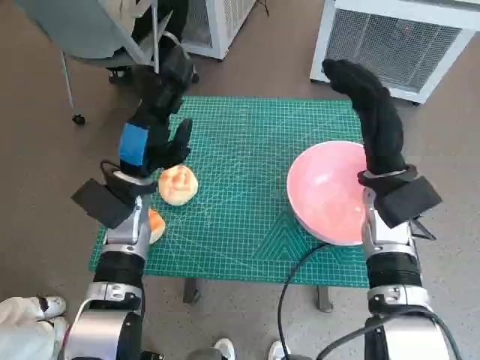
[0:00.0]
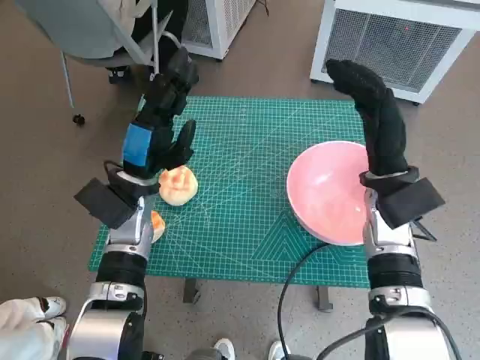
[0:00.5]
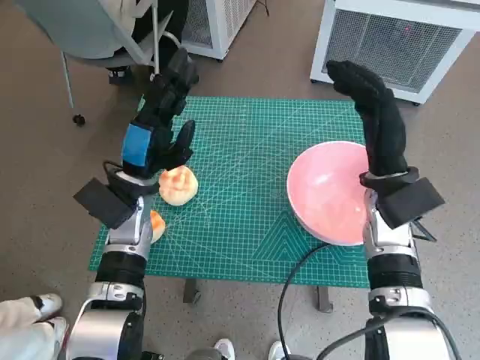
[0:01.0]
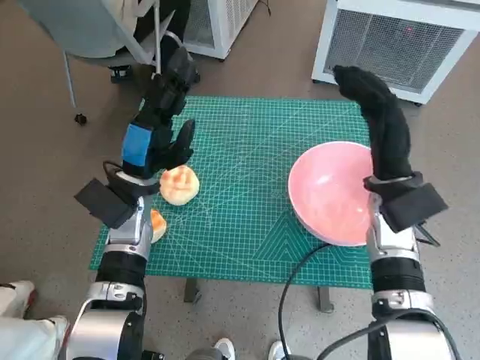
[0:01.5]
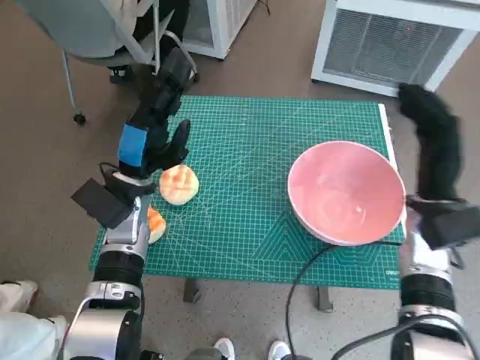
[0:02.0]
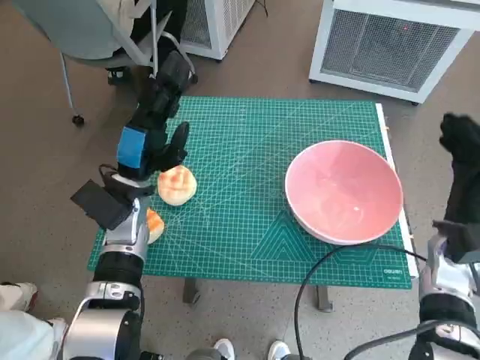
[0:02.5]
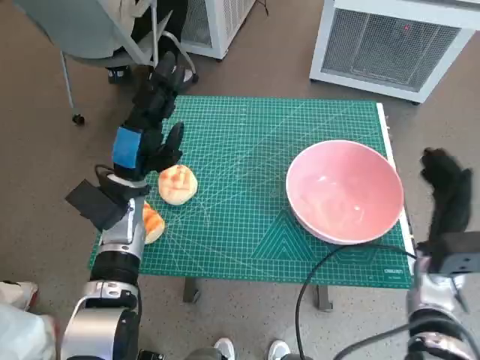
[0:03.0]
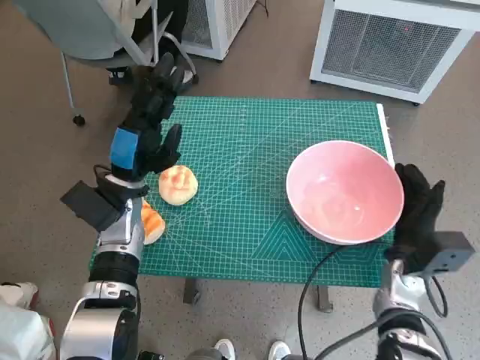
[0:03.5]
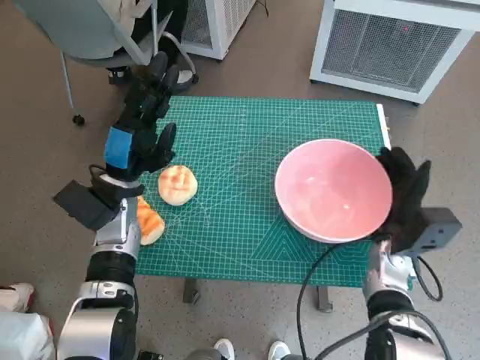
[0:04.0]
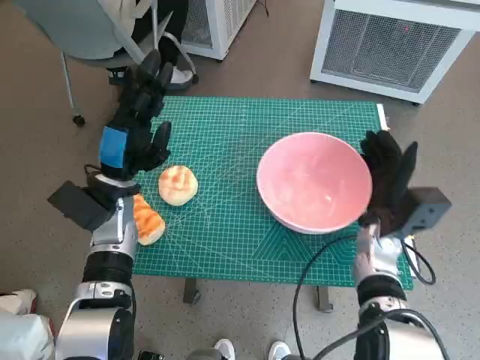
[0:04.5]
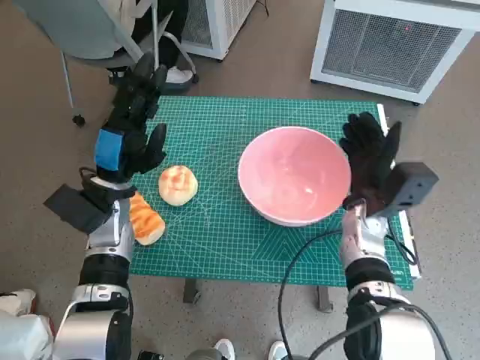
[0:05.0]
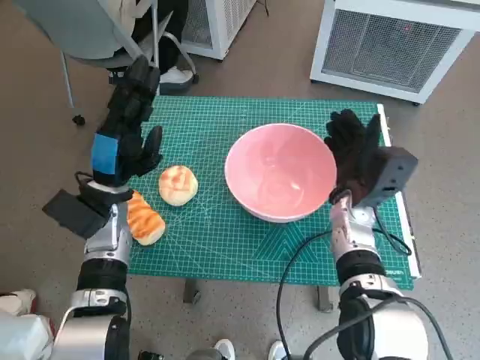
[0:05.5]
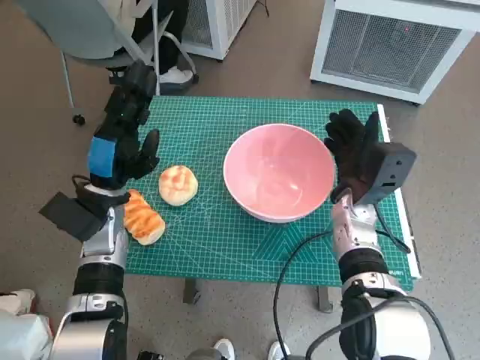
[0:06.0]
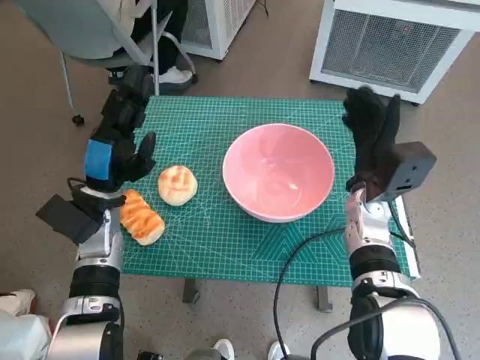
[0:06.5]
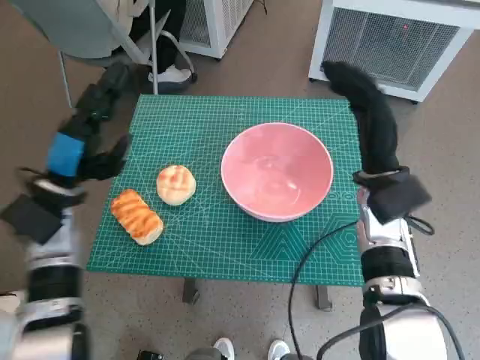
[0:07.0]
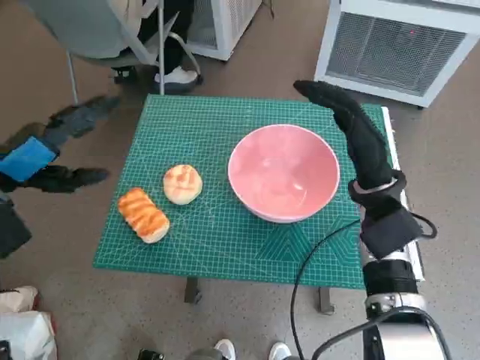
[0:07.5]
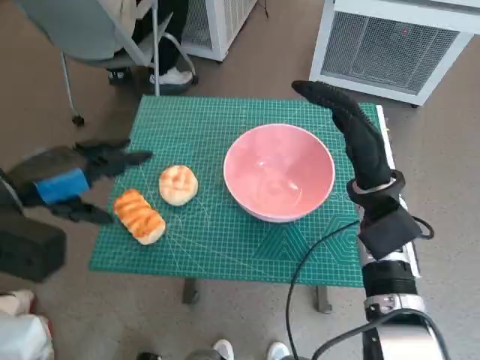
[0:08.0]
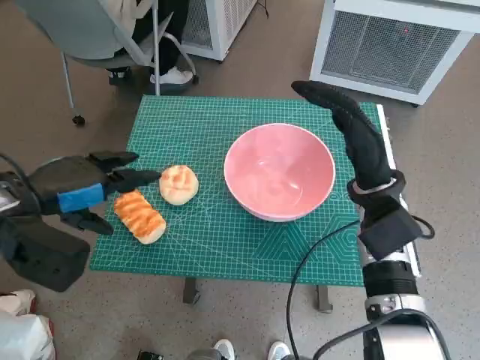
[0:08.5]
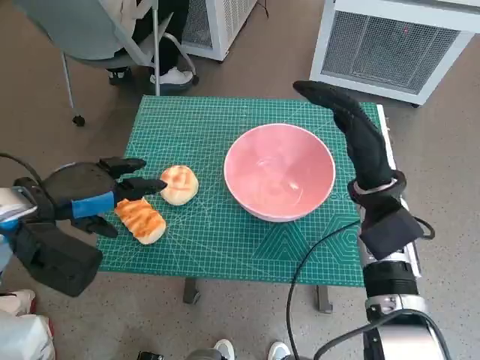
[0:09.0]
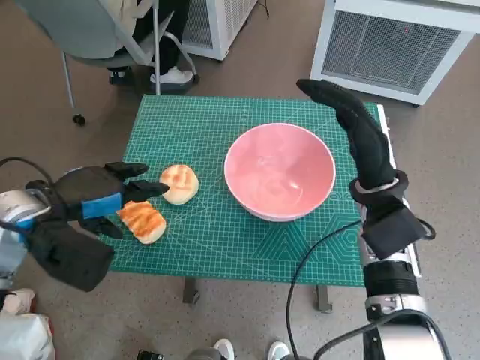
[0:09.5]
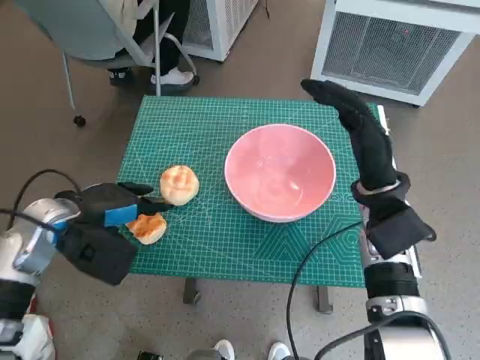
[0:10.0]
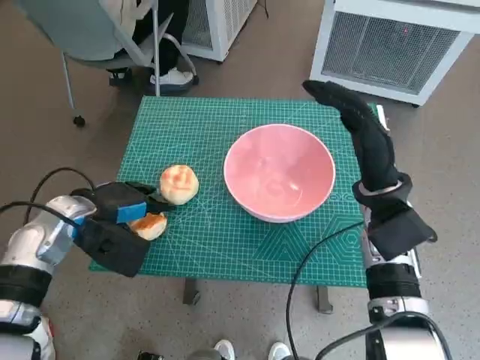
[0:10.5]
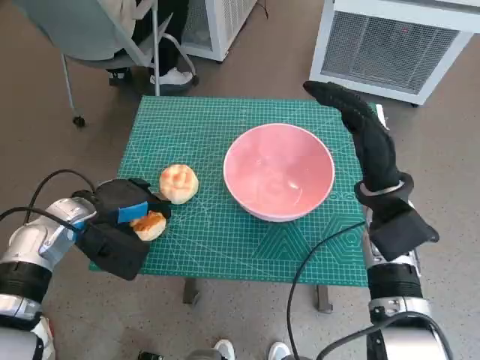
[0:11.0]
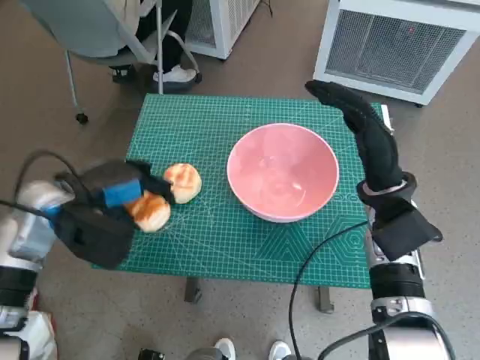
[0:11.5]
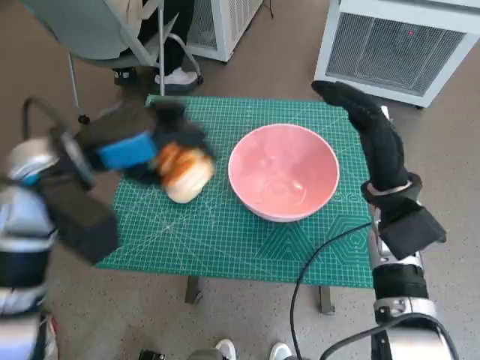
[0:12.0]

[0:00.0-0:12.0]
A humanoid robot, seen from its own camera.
Task of the whole recording: Push the bowl to the center of the table and put the bread into the bowl.
Step, 0:00.0 to 0:06.0: Move the pink bowl to the center of table with right hand.
Step, 0:06.5 to 0:11.0: Grasp the long bread with left hand.
0:02.0 to 0:04.0: The right hand goes about 10 cm downward.
0:04.0 to 0:06.0: The right hand shifts roughly 10 cm to the left, upward and forward.
0:06.0 to 0:08.0: The left hand moves upward and to the left, roughly 10 cm. Meanwhile the right hand is displaced upward by approximately 5 cm.
0:08.0 to 0:10.0: The left hand goes about 5 cm downward.
0:10.0 to 0:12.0: The left hand travels upward by approximately 10 cm.

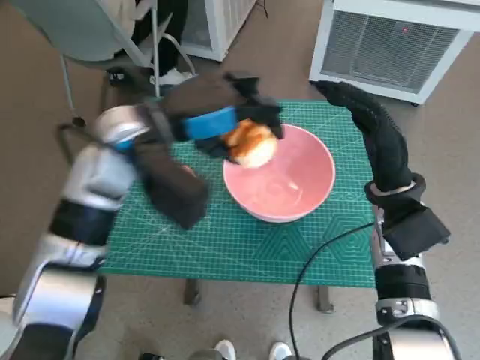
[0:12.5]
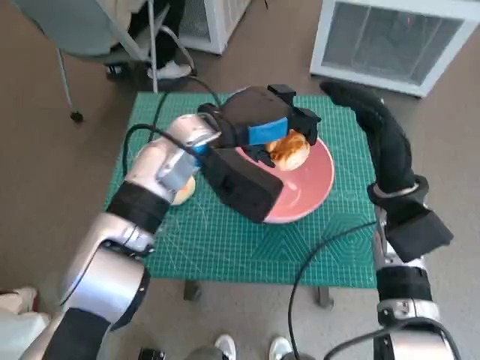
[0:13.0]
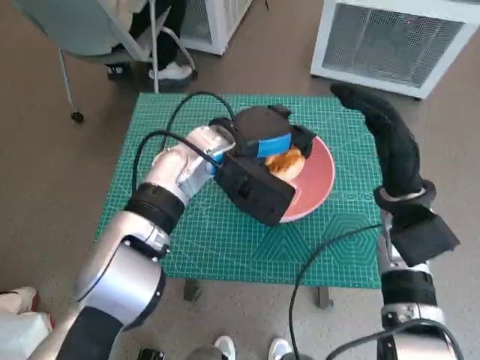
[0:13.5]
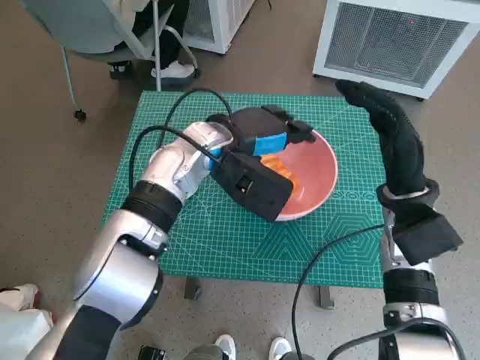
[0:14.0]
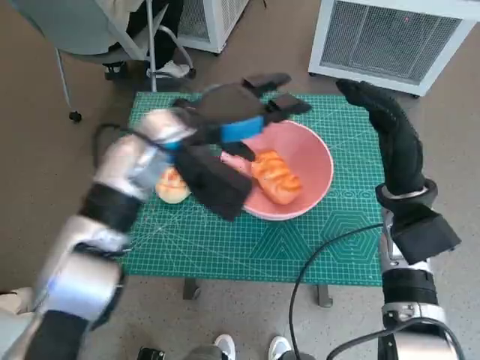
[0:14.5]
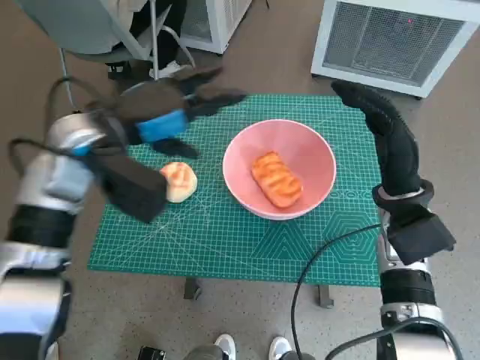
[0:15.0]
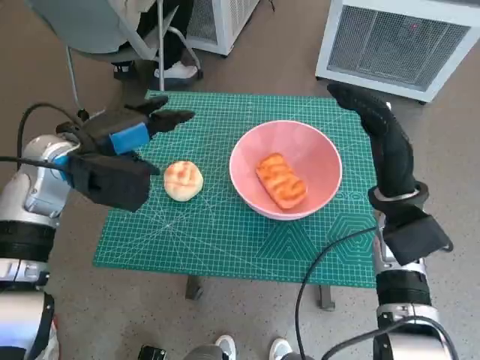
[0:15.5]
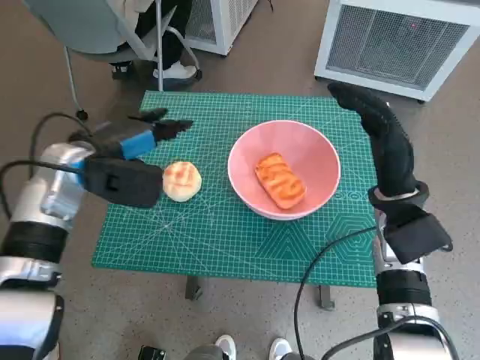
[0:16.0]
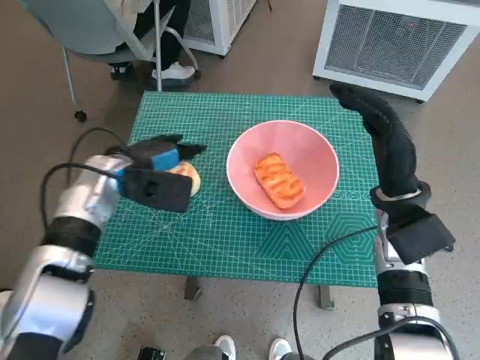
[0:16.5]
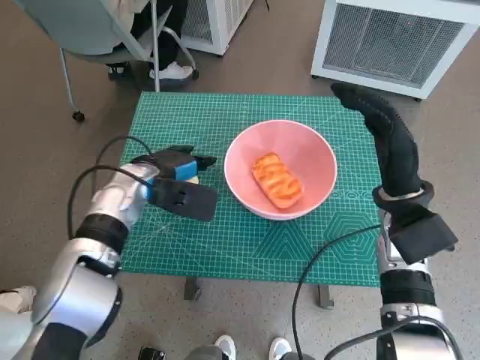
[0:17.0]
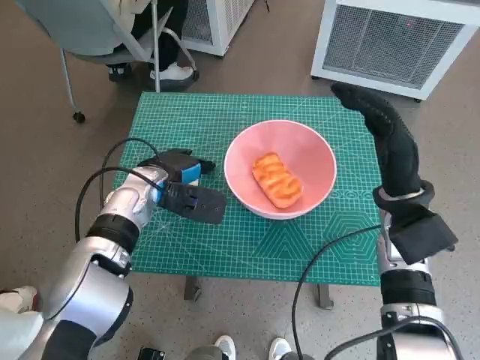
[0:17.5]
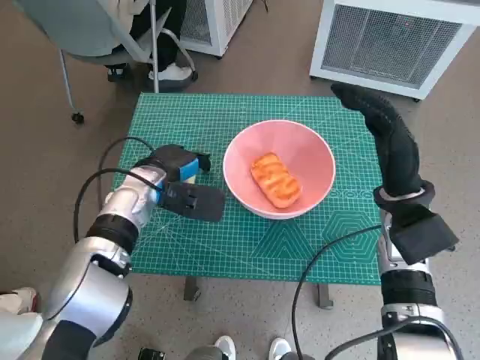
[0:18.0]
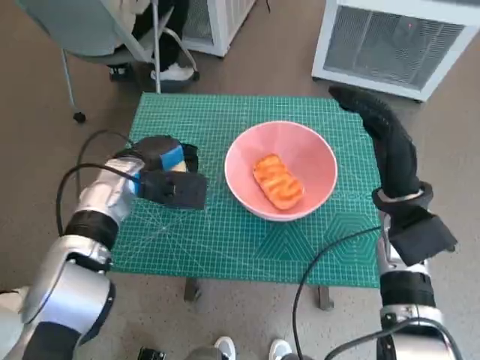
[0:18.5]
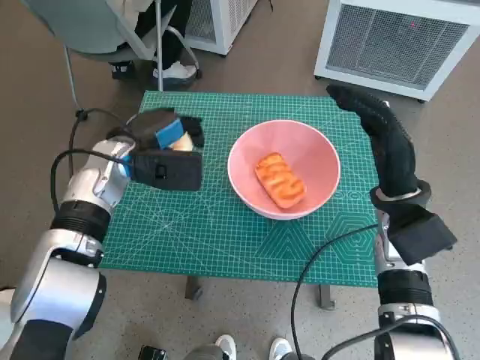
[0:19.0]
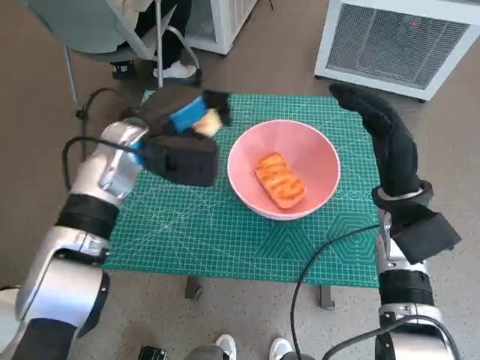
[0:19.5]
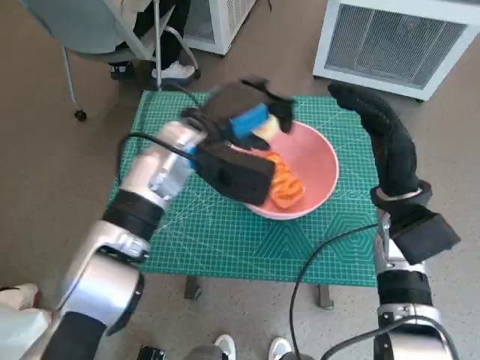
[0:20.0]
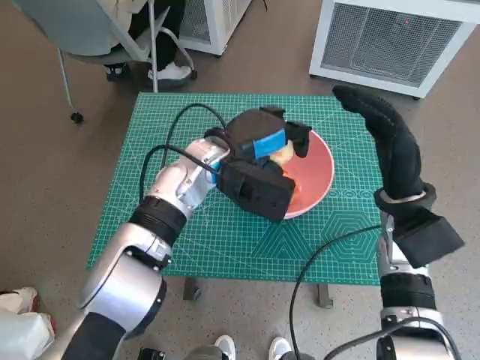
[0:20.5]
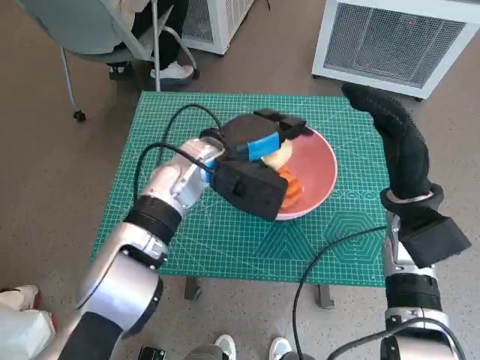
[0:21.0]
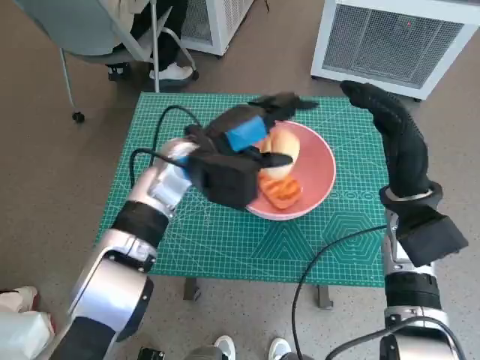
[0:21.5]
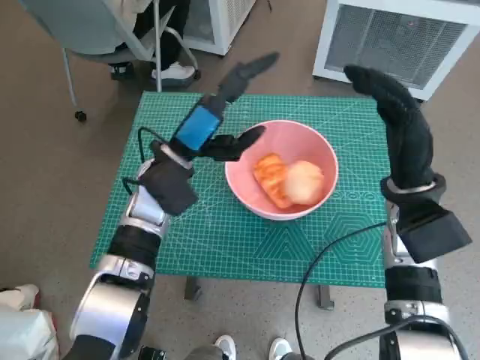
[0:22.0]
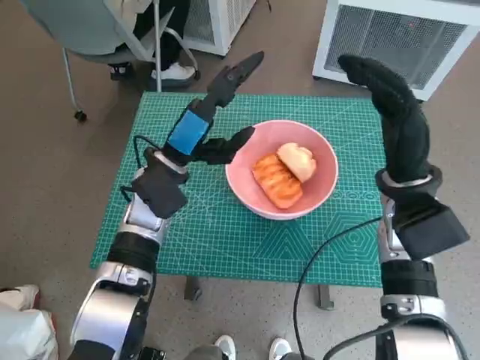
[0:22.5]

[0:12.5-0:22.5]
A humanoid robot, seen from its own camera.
Task of the whole recording: Push the bowl to the center of the table and put the bread into the bowl.
Step, 0:12.5 to 0:14.0: Place the long bread in pink bowl with left hand.
Step, 0:14.5 to 0:18.0: Grasp the round bread with left hand.
Step, 0:18.5 to 0:21.5: Place the round bread in pink bowl with left hand.
0:14.5 to 0:16.5: The left hand moves to the left and downward, roughly 15 cm.
0:16.5 to 0:18.5: The hands make only small movements.
0:18.5 to 0:20.5: The left hand heads to the right, covering approximately 15 cm.
0:20.5 to 0:22.5: The left hand heads to the left, covering approximately 5 cm.

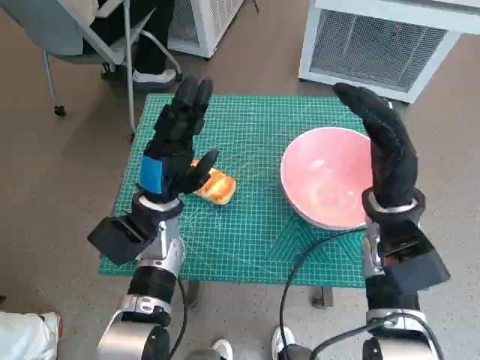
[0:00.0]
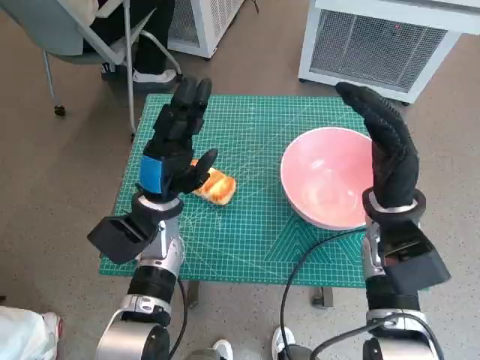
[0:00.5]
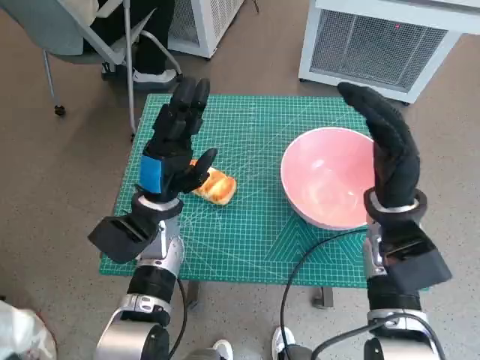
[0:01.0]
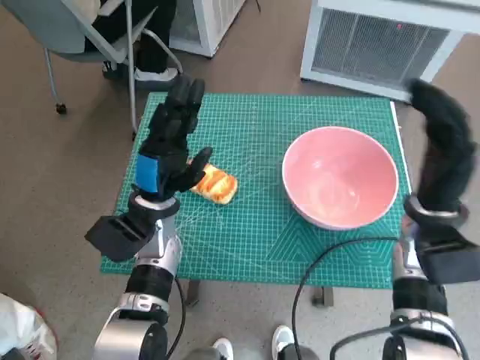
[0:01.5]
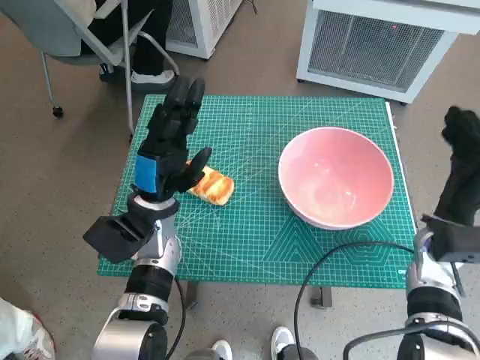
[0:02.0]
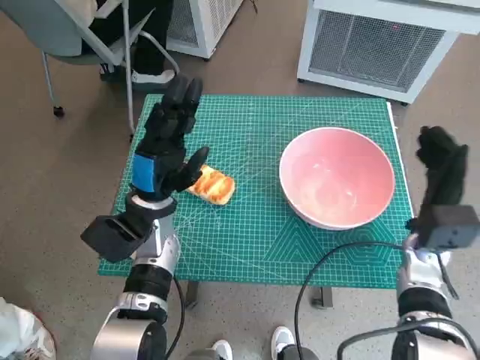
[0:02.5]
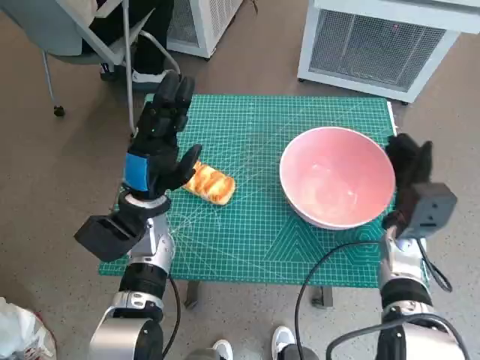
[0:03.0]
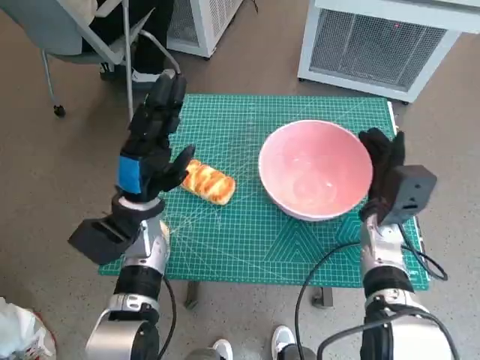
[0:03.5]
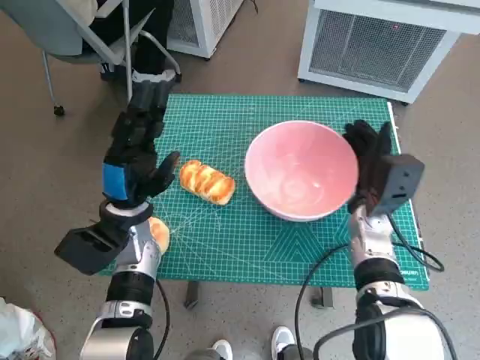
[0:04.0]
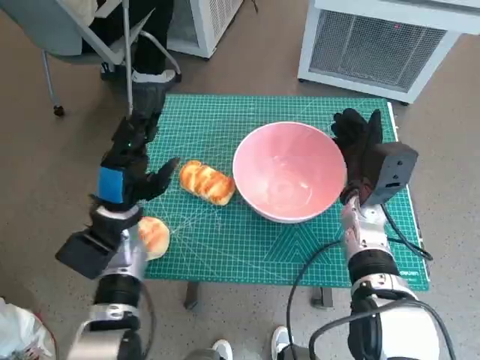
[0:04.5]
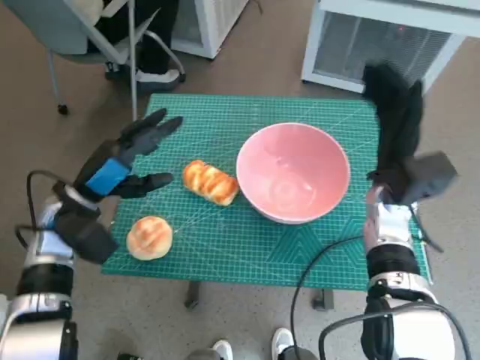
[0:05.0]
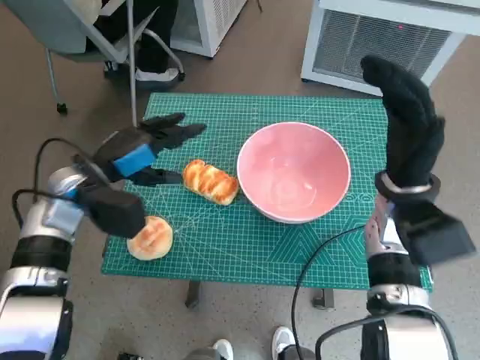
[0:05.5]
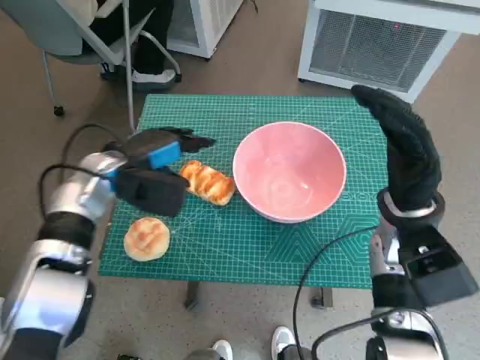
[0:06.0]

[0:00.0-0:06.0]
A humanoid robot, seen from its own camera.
Task of the whole recording: Push the bowl to the center of the table and put the bread into the bowl.
Step, 0:00.0 to 0:04.5: Move the pink bowl to the center of table with right hand.
0:02.0 to 0:04.0: The right hand moves to the left, roughly 10 cm.
0:04.0 to 0:06.0: The right hand travels upward by roughly 10 cm; the left hand heads upward and forward, covering roughly 10 cm.
